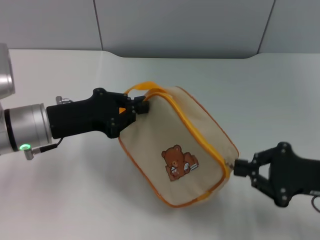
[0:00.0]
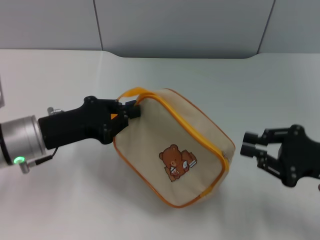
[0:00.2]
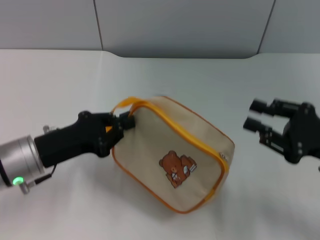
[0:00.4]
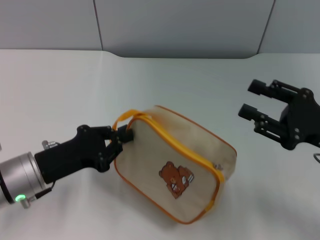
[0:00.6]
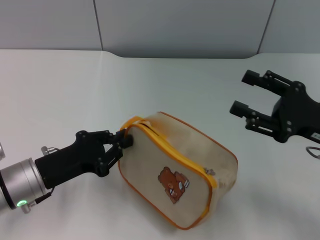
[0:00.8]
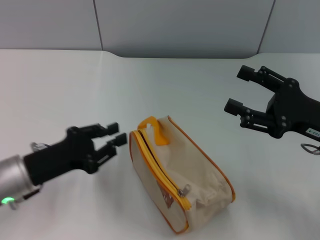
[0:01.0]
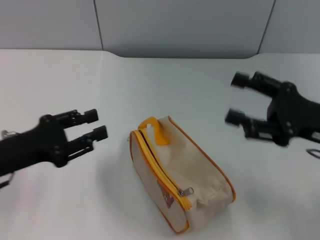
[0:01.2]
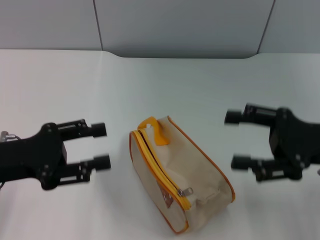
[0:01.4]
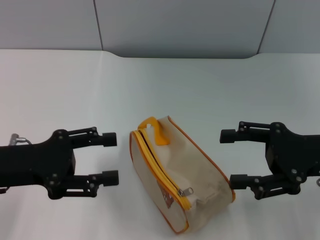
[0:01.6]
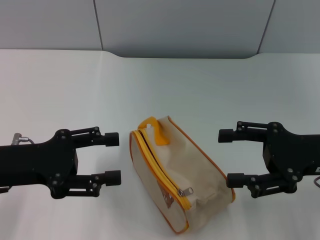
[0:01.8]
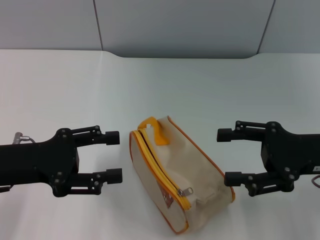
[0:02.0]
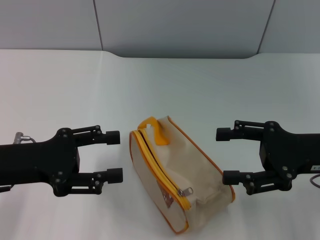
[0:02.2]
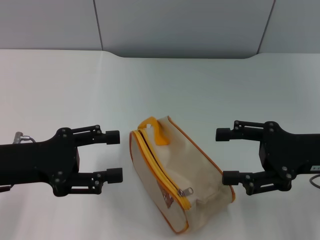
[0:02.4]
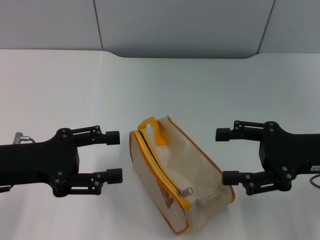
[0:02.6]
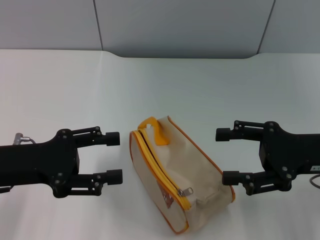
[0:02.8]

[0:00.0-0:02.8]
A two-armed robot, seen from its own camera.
Step, 0:00.4 to 0:00.8: Place the bag on the table with left gripper.
0:00.0 to 0:01.4: The left gripper shifts approximately 10 cm backward and to the left, and opens up; the right gripper goes about 5 cm upward, and opens its fingers.
0:01.4 to 0:02.8: The grippers make only small movements.
